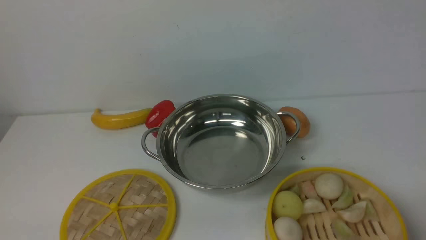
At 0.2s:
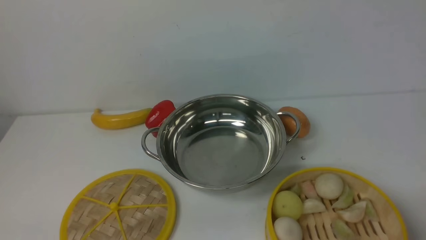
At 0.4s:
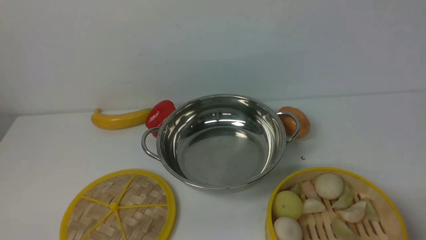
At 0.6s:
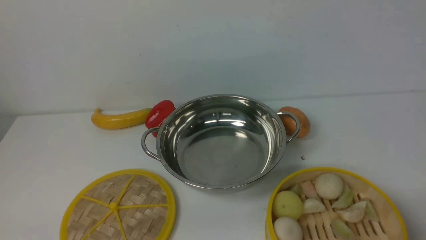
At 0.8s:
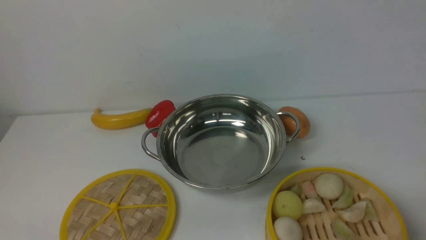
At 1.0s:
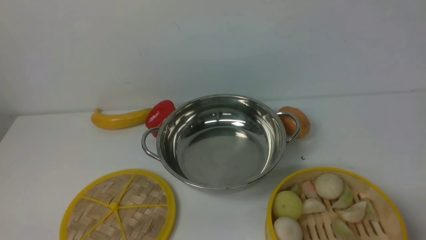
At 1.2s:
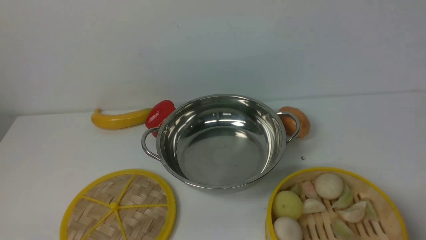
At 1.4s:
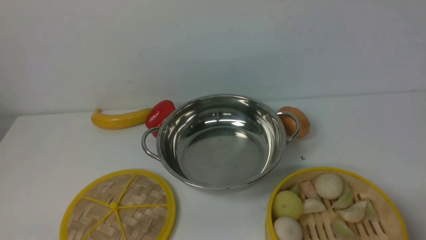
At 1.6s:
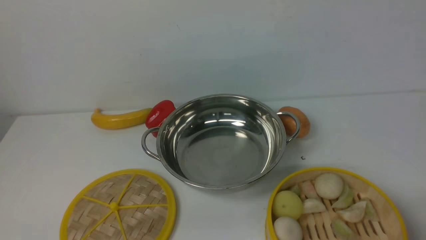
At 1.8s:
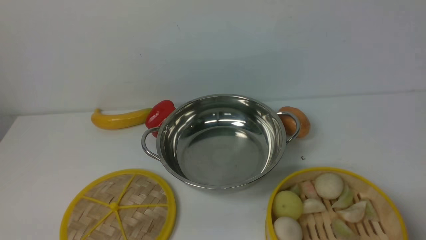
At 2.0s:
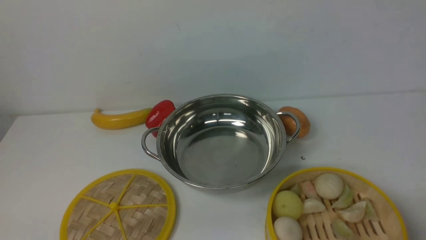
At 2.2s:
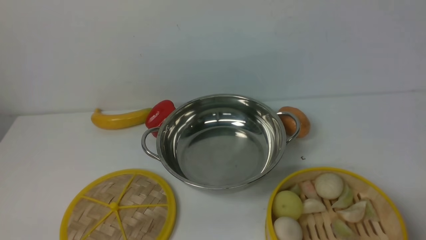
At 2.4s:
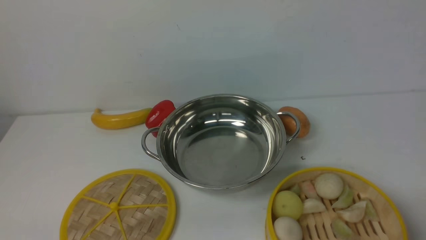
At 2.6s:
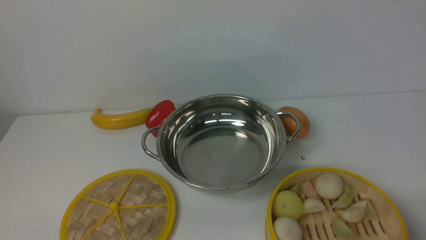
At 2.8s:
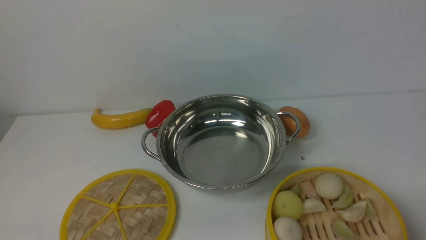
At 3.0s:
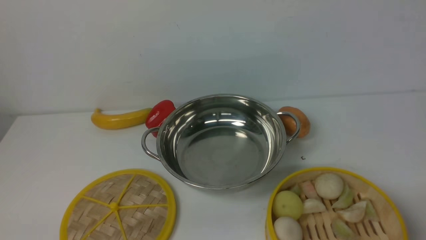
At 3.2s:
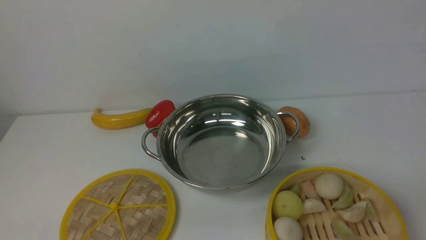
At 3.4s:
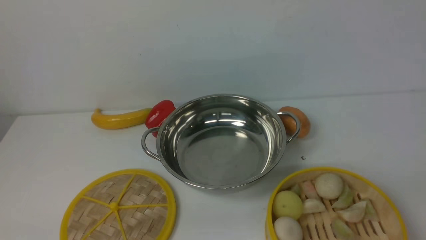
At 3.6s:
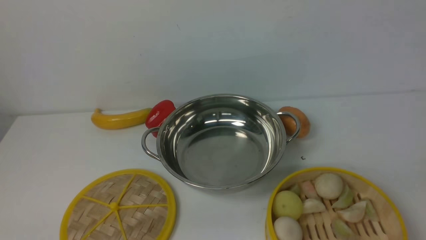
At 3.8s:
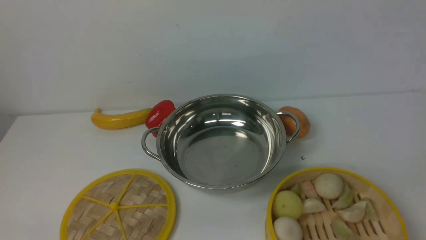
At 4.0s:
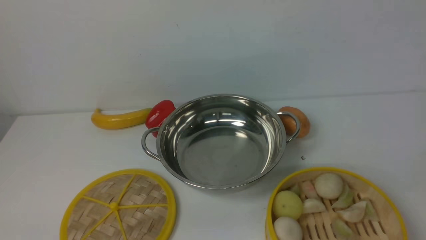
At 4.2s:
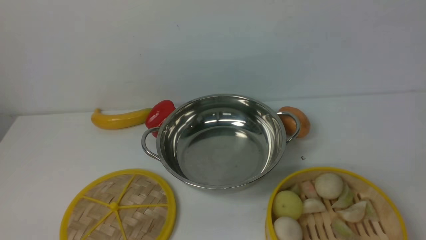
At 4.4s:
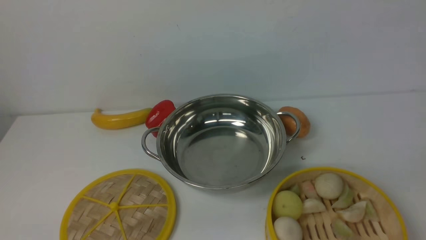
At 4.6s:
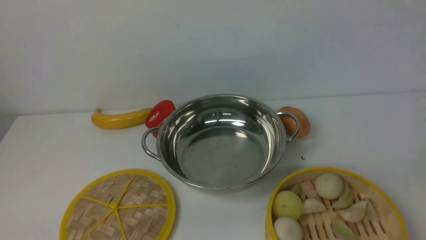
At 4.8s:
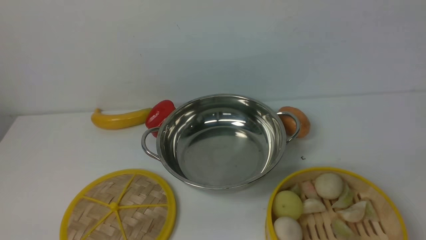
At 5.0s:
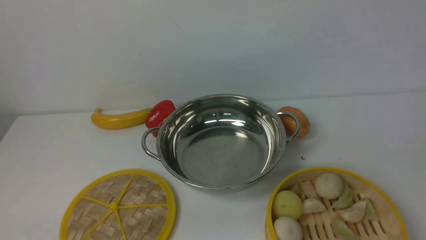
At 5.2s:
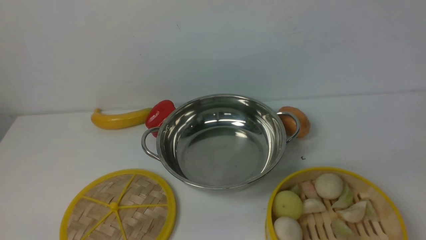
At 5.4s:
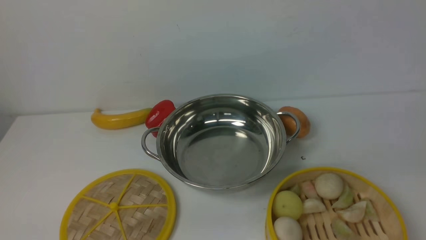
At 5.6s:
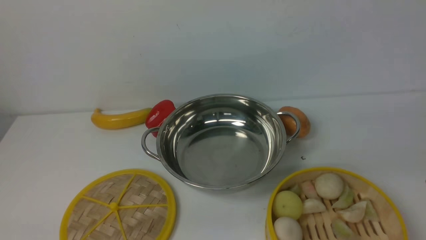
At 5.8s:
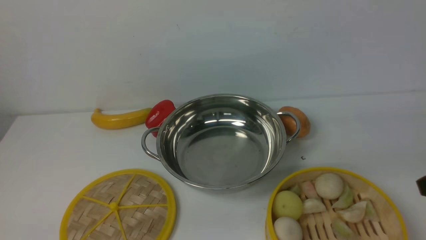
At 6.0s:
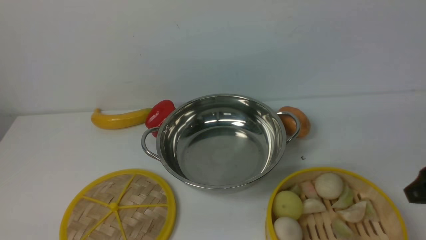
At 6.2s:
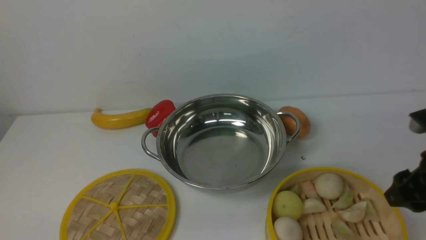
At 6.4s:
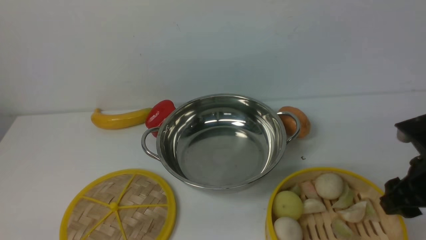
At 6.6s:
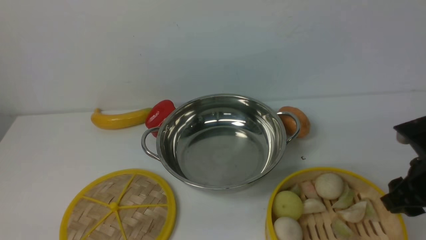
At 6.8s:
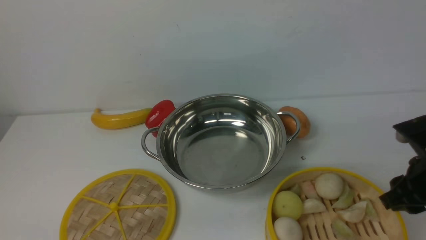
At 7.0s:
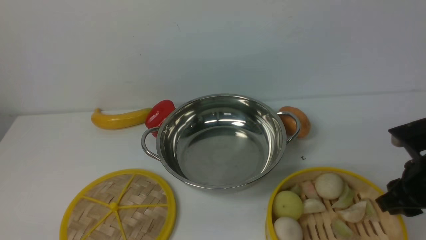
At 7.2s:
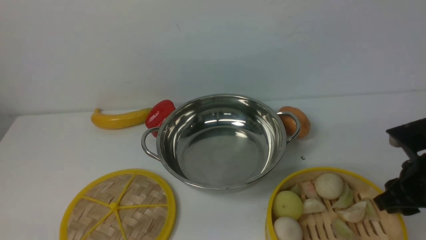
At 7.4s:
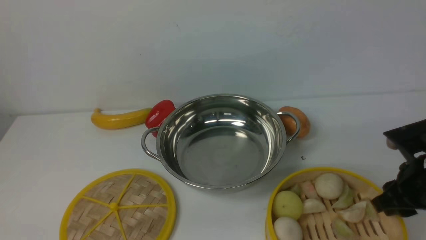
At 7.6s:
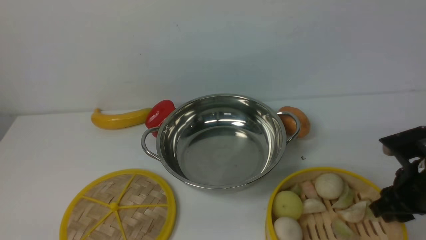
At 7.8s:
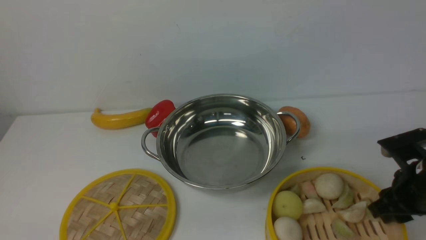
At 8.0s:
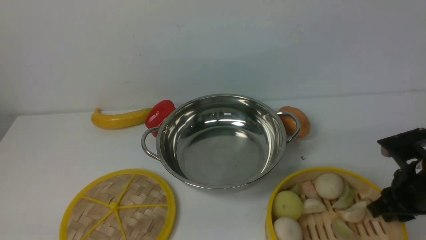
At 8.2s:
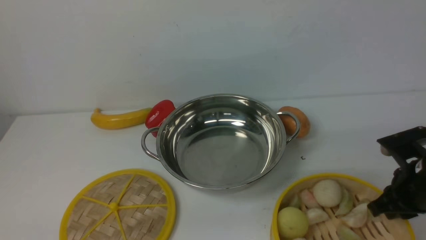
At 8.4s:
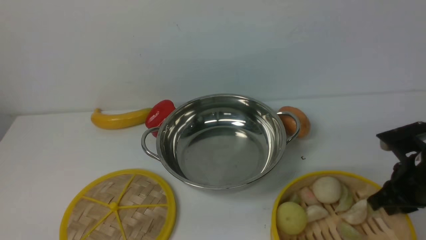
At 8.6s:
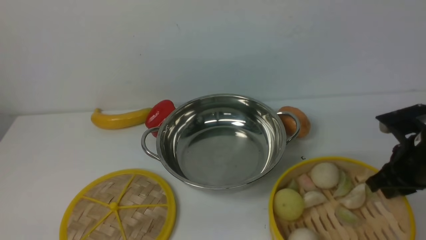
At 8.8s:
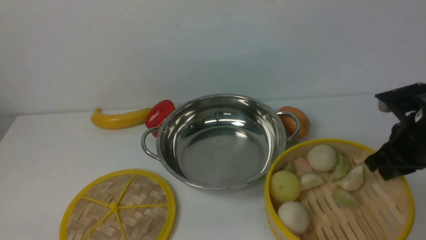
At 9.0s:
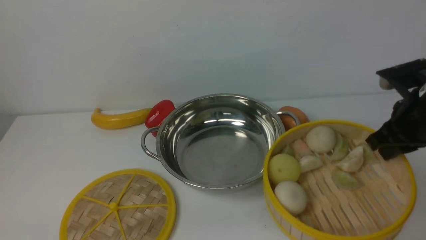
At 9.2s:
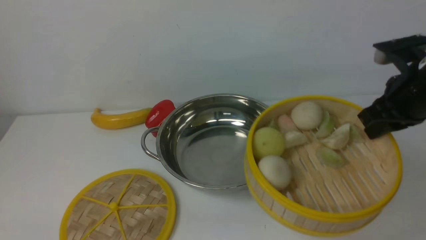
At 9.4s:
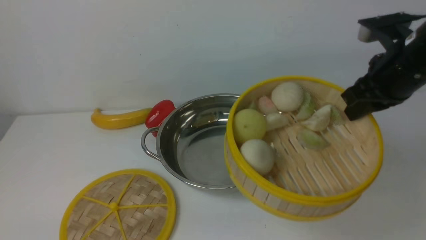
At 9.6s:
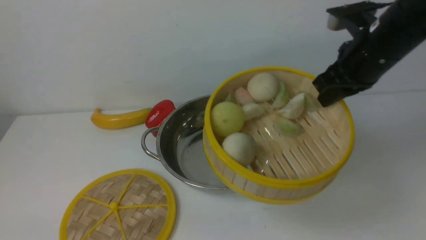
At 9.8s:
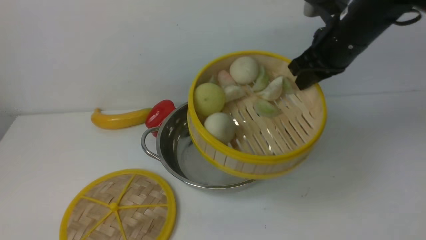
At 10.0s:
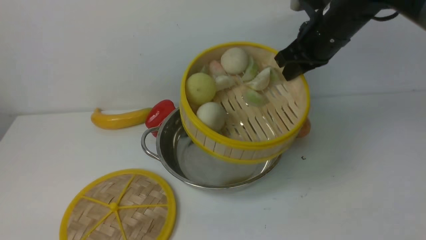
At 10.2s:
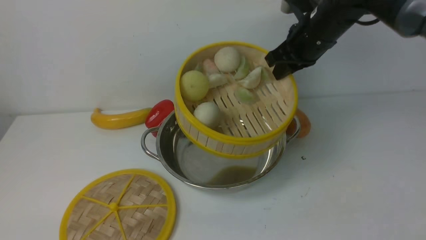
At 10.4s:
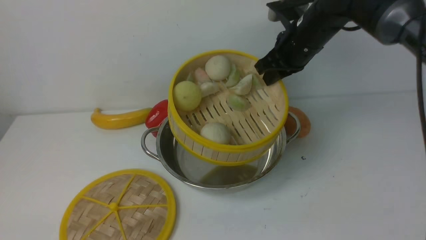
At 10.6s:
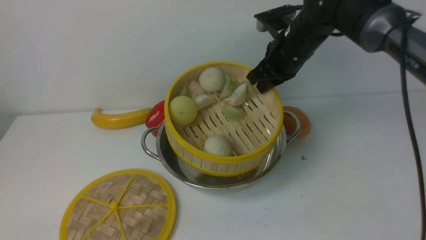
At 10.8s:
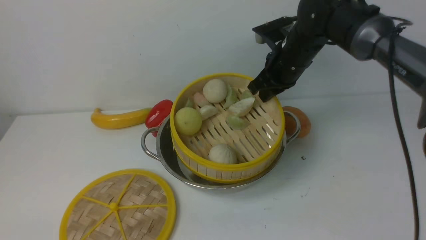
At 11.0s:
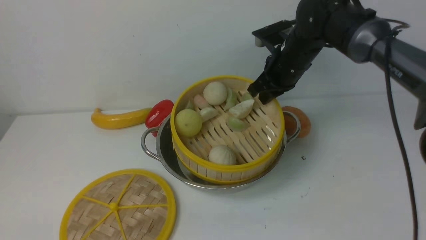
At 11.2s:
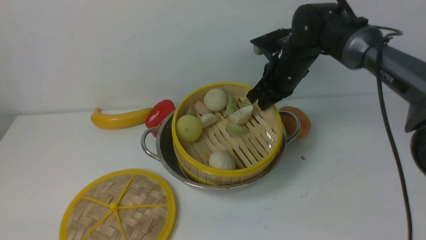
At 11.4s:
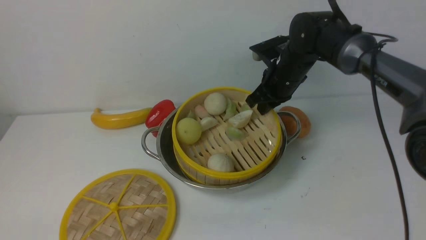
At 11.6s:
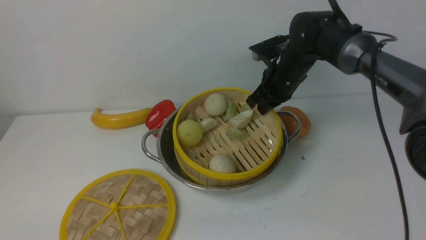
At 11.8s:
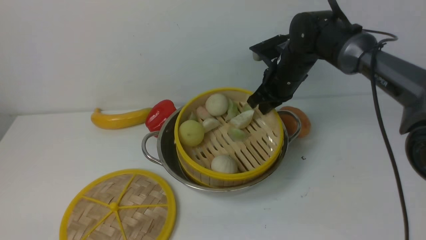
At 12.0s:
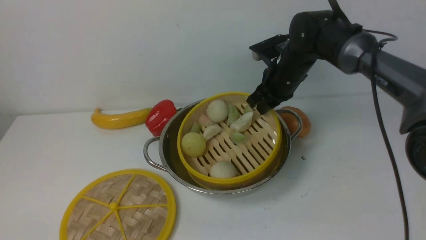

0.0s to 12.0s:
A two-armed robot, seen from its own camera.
Task of the whole recording: place the steamer in the pot on the white table, and put the lid on the steamer.
Step, 0.0s to 8.8s: use the right arm to lift the steamer closest to it.
1.6s to 3.0s: Neither gripper changes place.
6.0s to 7.6s: The right gripper is displaced downward and forward by about 10 cm.
7.6s to 9.0s: The right gripper travels upward by approximately 5 cm, and closes.
9.0s to 10.4s: The right gripper is displaced forward and to the left by approximately 20 cm.
10.4s to 12.0s: The right gripper travels downward by about 10 cm.

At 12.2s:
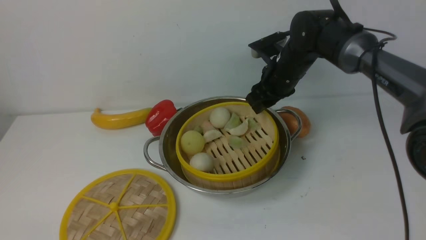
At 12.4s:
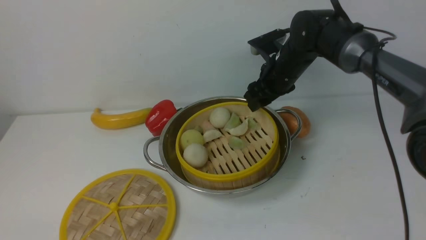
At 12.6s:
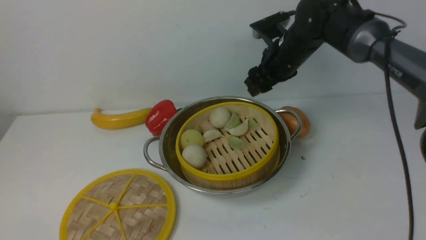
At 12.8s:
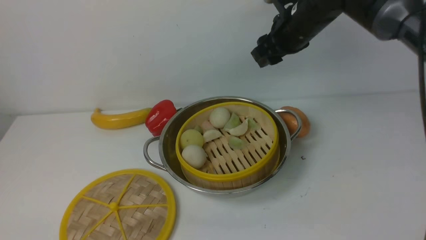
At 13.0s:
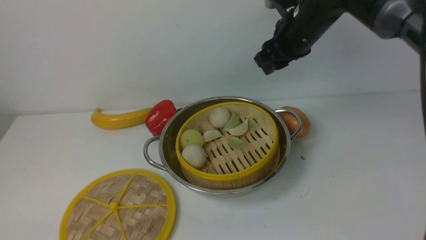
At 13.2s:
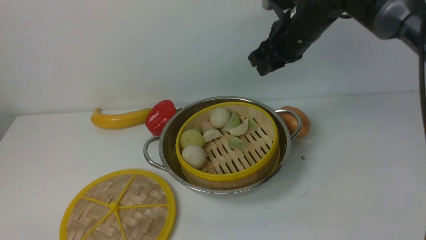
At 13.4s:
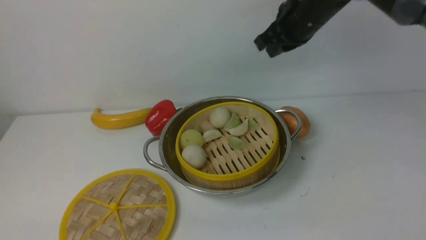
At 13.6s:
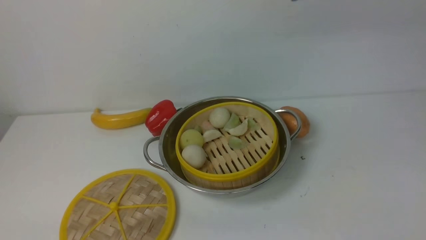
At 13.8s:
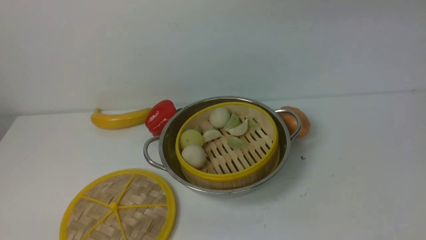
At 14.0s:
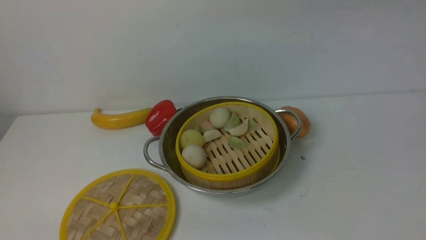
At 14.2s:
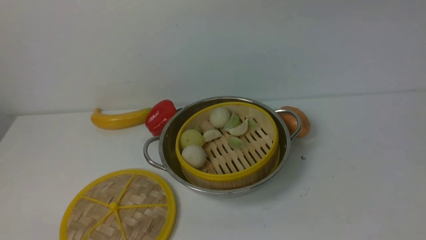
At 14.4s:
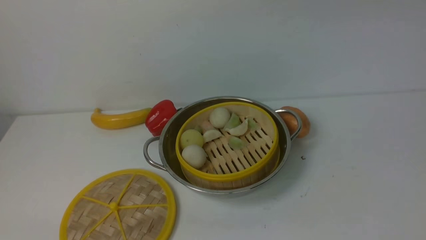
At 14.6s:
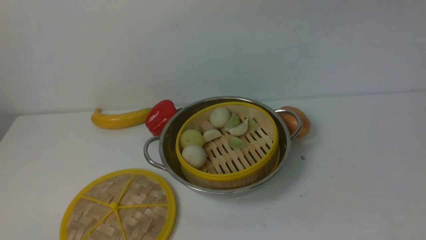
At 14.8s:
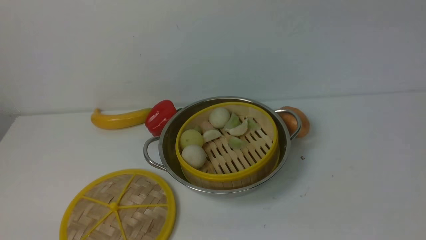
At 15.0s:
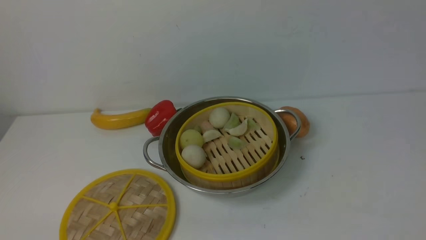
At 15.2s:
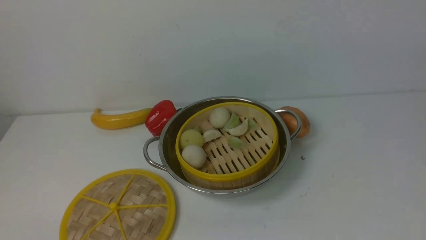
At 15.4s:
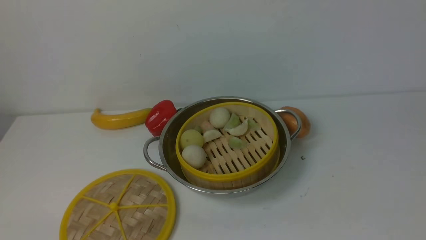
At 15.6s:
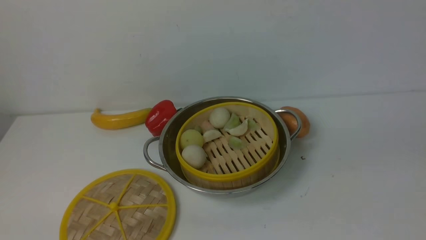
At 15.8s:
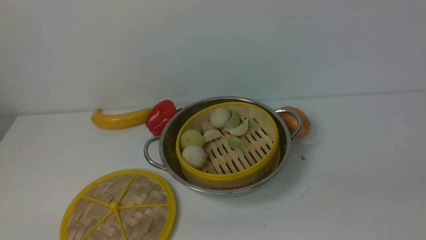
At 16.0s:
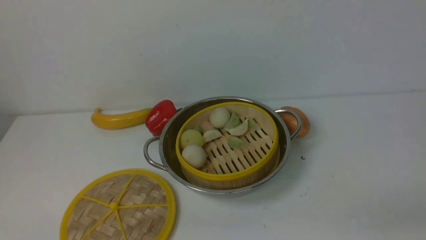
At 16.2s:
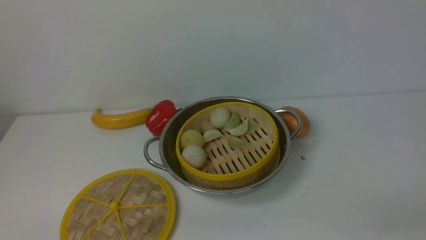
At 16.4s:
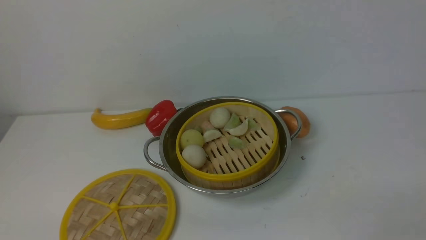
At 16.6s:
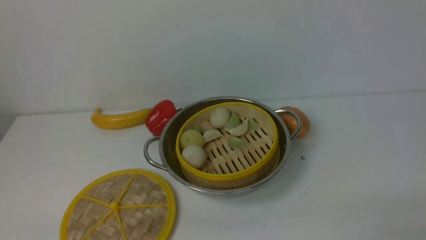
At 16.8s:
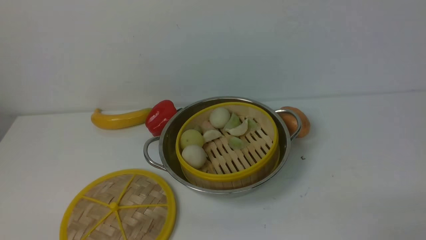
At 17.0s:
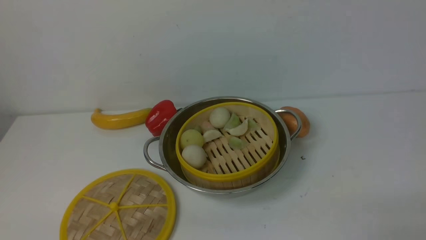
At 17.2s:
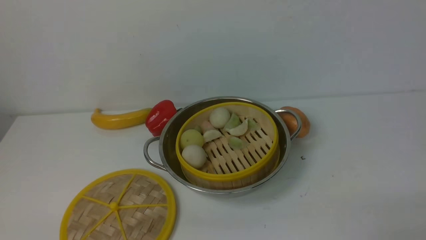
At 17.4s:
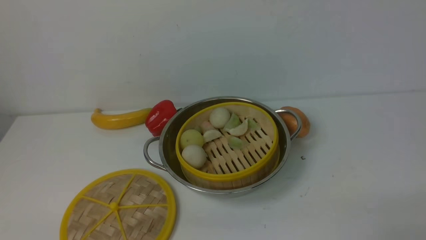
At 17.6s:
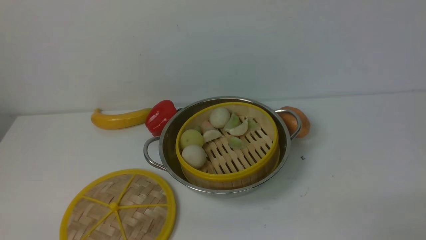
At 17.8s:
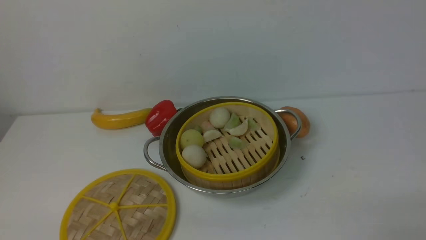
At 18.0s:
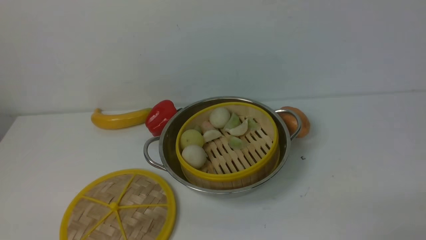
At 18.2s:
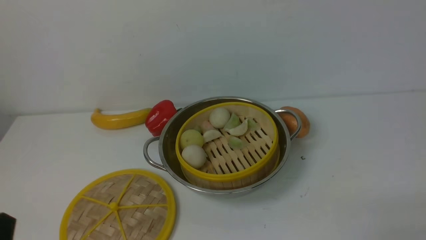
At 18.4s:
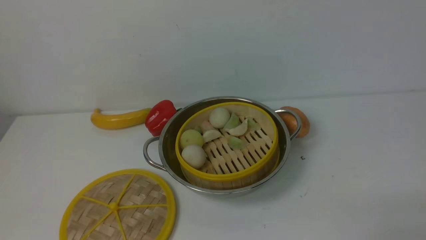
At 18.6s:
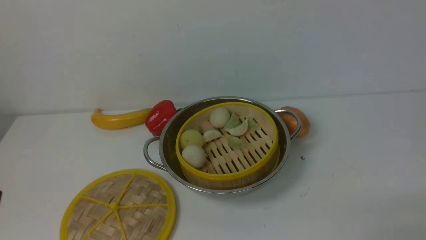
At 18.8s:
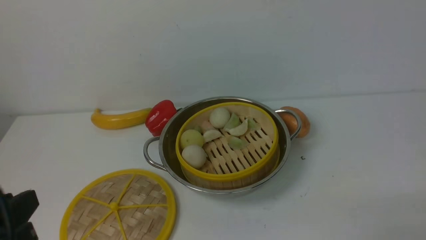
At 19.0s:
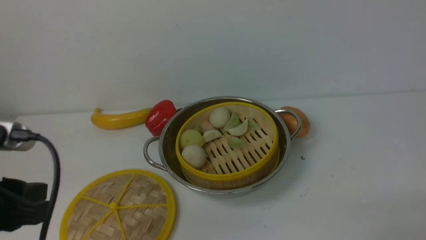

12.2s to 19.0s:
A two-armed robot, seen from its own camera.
Task of the whole recording: place the steamer in the pot on the white table, and put the lid on the steamer.
12.2s to 13.6s: The right gripper travels upward by roughly 20 cm, and closes its fingers.
17.6s to 19.0s: The left gripper shifts some 15 cm upward and forward.
